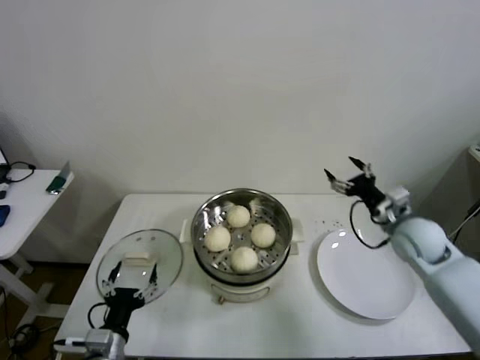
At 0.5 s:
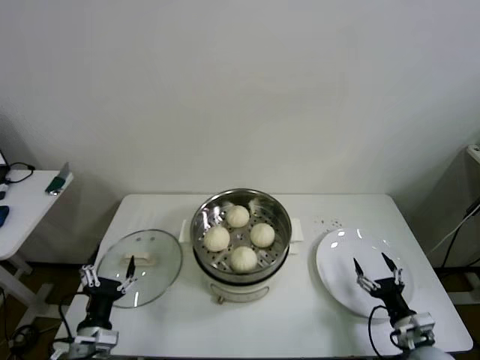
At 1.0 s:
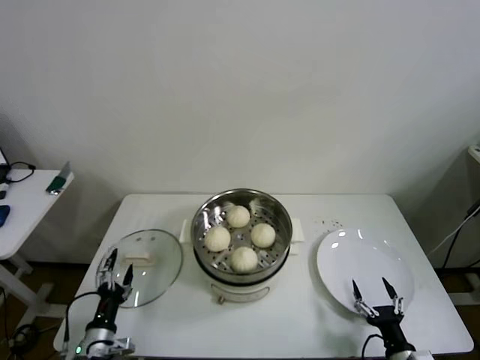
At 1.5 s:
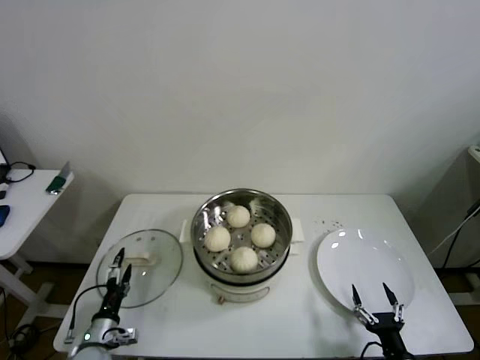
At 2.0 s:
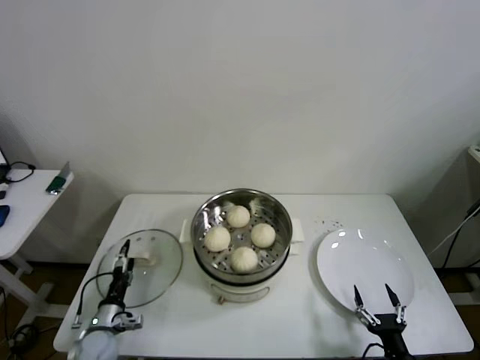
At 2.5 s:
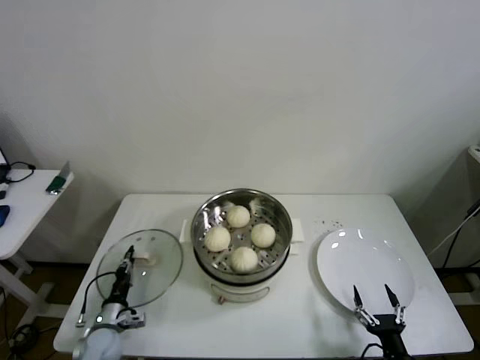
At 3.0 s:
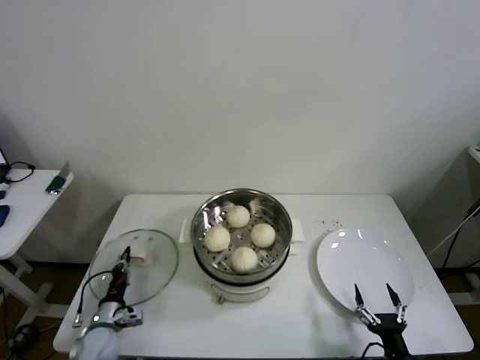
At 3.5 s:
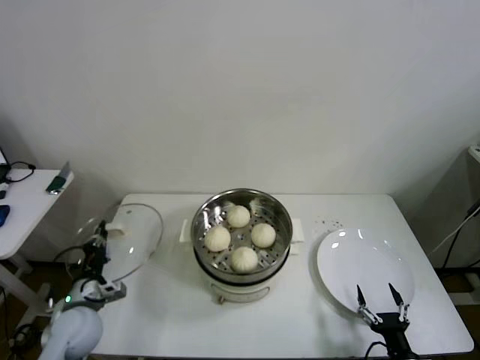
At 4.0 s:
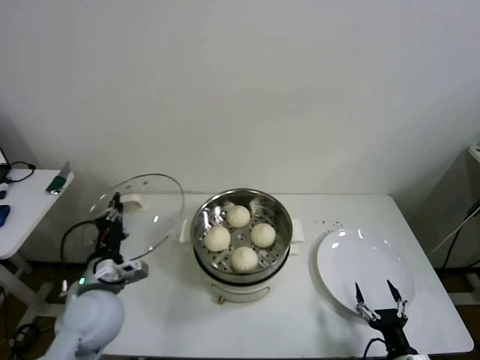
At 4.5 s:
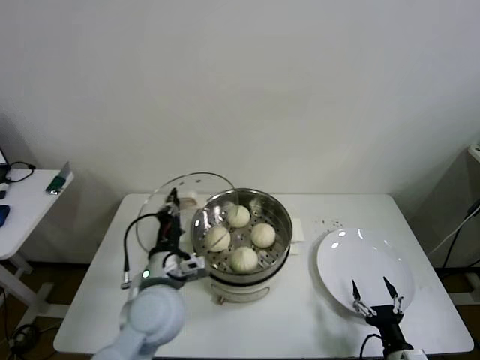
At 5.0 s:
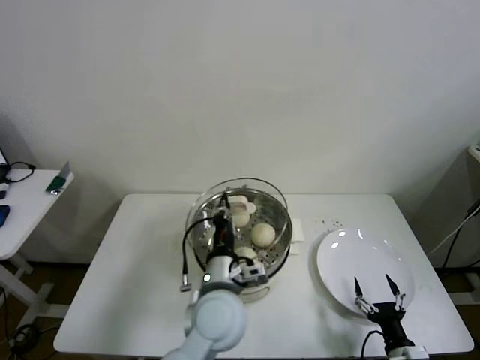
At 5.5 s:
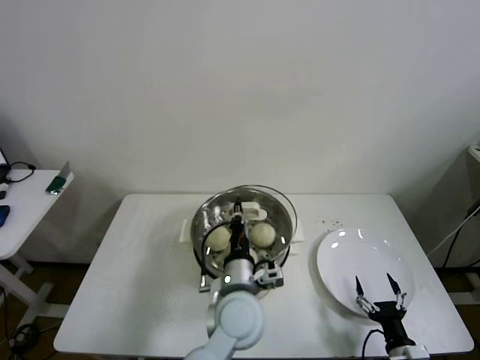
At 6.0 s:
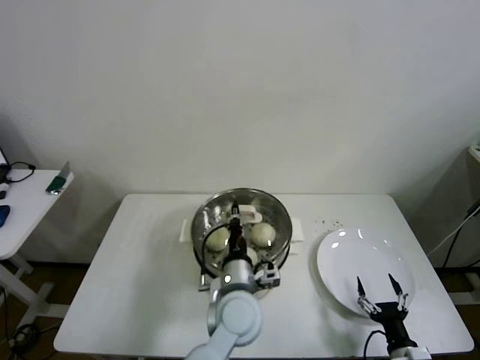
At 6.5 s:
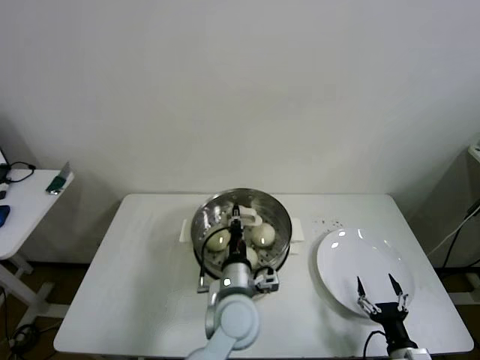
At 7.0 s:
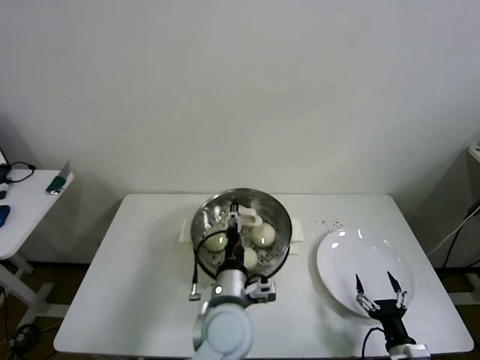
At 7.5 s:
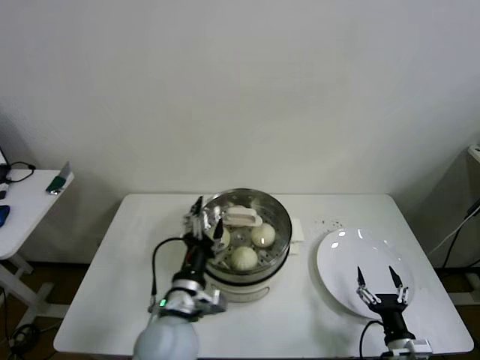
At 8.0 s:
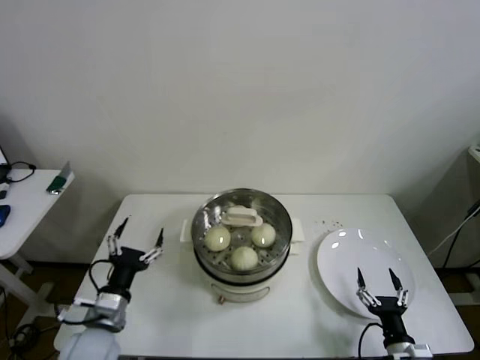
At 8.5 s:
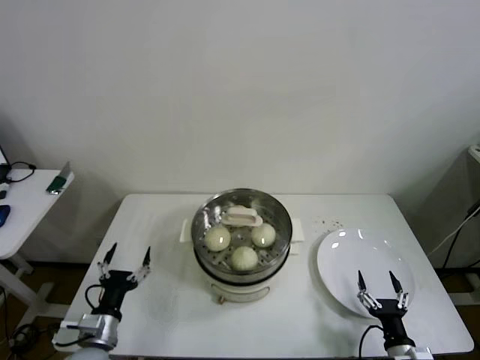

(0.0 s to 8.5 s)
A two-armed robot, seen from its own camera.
Step, 0.0 s - 2.5 s: Grasp the pot lid with left gripper.
Step, 3.0 s - 7.0 s: Place the pot lid on the steamer with left gripper.
0.0 s - 2.0 s: The right gripper goes some 40 cm backward and downward, while the left gripper heads downward, forward and to the left, covering some 15 cm.
2.0 s - 4.0 s: The left gripper heads upward, covering some 20 cm, and closes up.
4.0 s - 6.5 s: The left gripper is displaced to the right by approximately 25 cm.
6.5 s - 8.5 s: The left gripper goes about 30 cm to the left, and opens.

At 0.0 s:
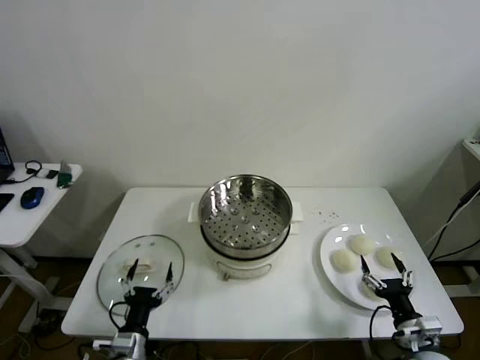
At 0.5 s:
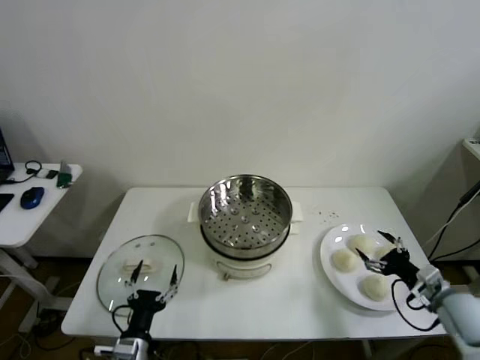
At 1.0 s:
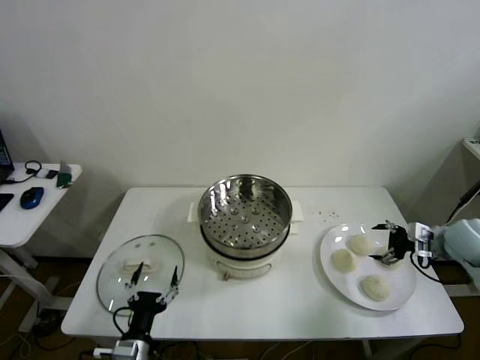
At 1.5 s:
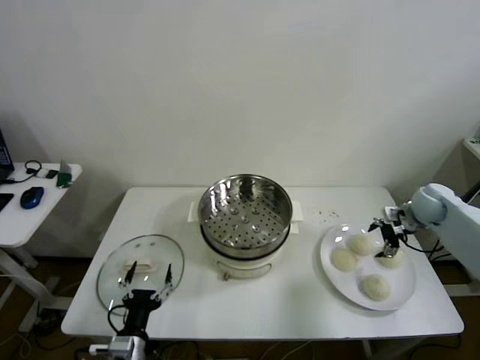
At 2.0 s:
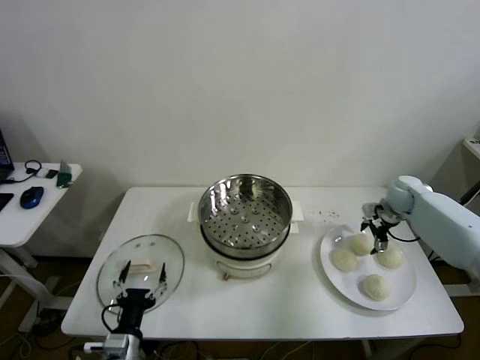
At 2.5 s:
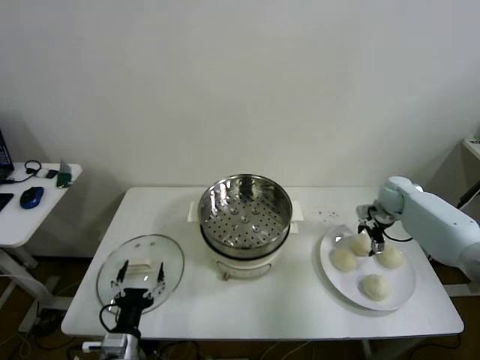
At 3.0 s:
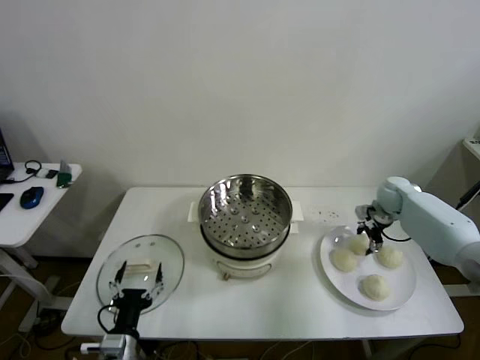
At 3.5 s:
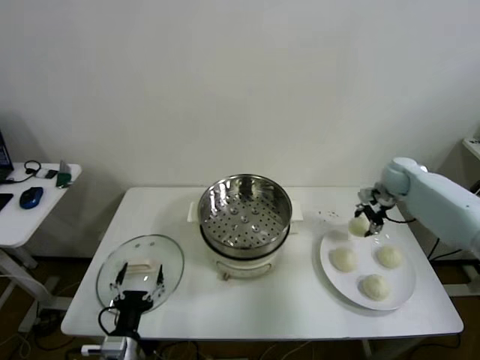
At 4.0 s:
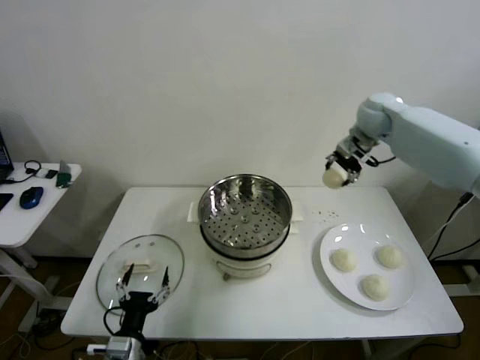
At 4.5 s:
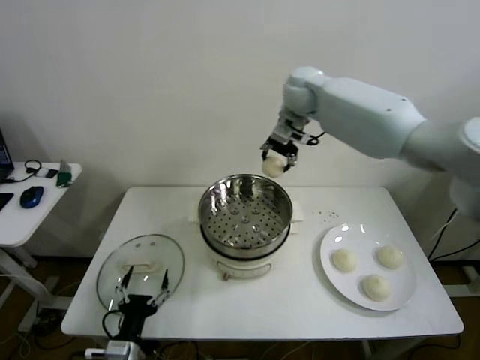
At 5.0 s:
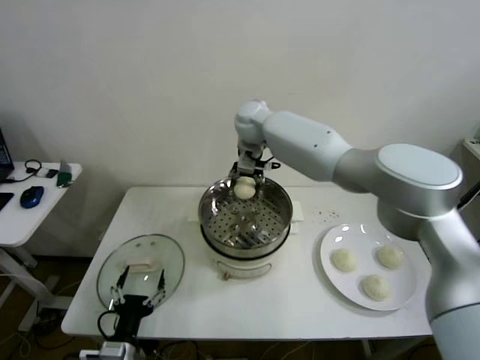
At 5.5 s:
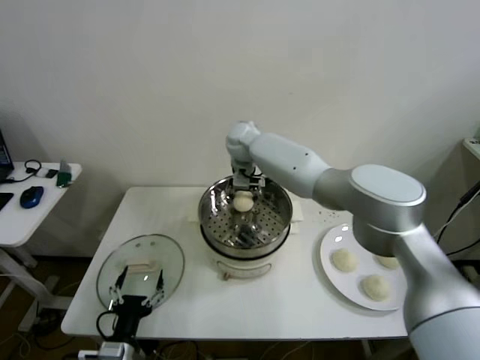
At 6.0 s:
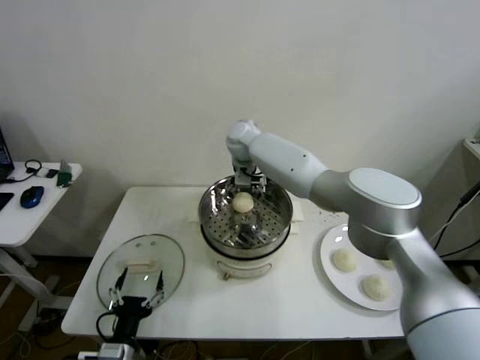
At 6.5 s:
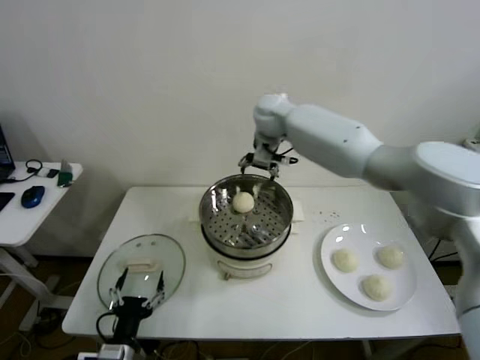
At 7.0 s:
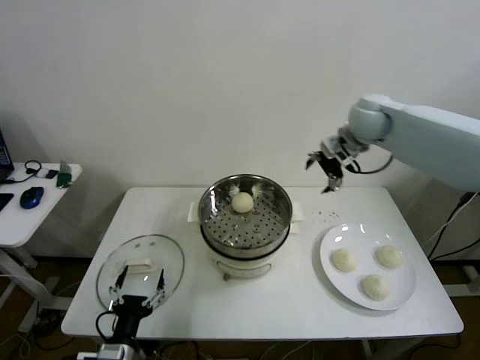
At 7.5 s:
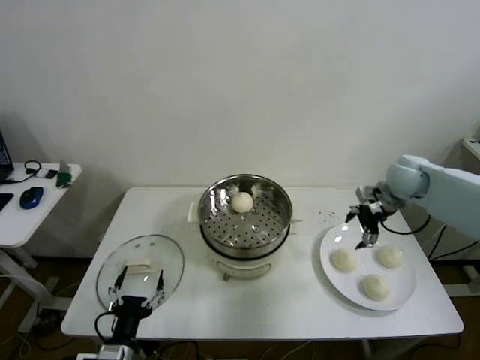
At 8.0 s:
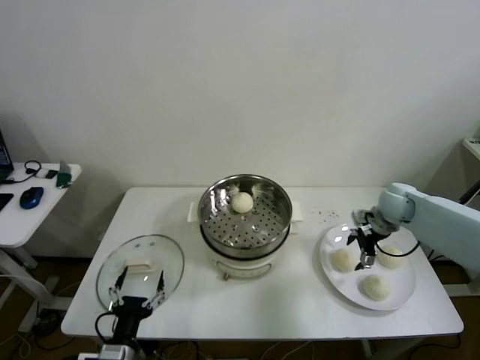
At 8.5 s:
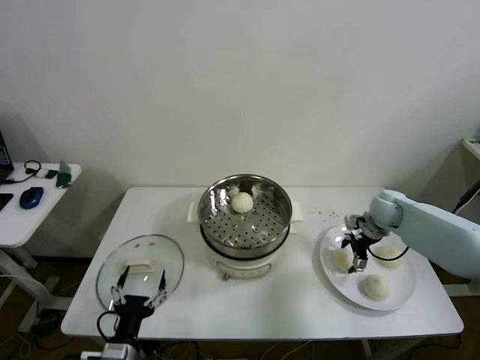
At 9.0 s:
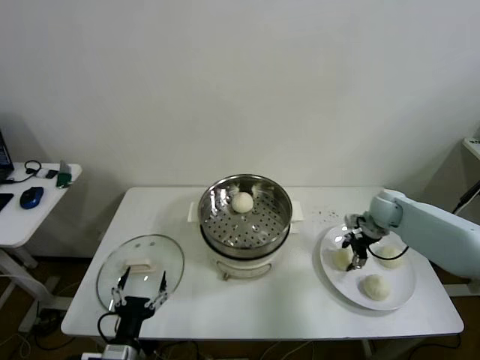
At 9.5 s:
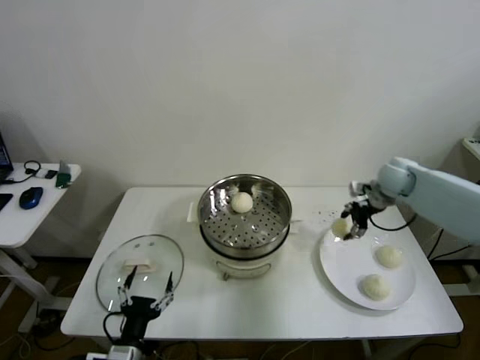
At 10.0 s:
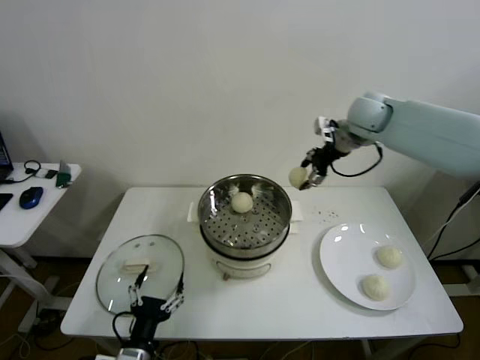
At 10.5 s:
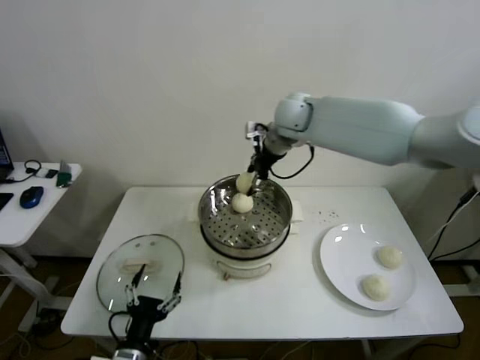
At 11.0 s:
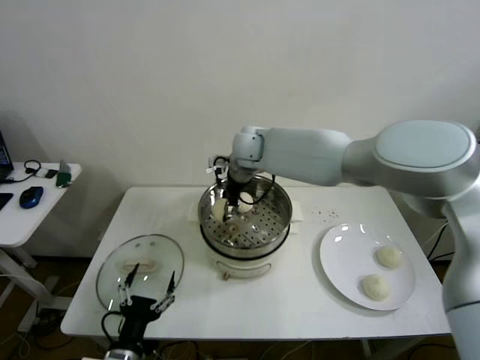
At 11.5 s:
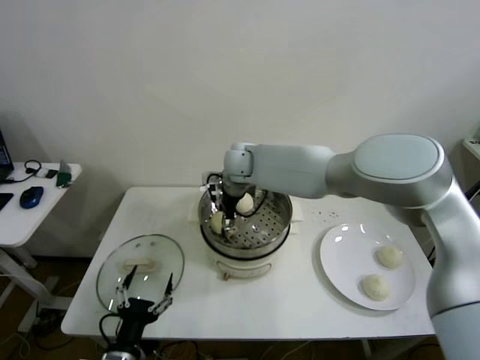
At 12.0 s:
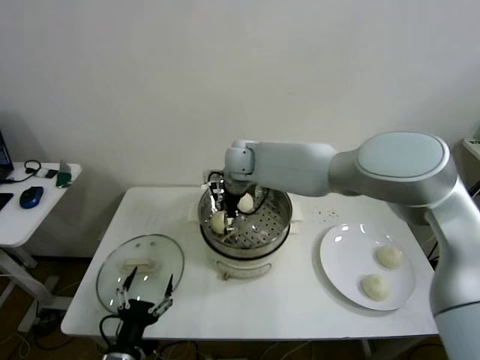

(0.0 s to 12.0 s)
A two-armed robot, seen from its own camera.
Step, 0.0 s - 3.0 s: Grasp the baozi in the plate with right gripper.
Step, 3.5 s - 5.5 s: Place the baozi on the steamer with right gripper.
Step, 6.0 s - 9.0 s: Grasp the baozi in the plate with right gripper.
Step, 9.5 s - 11.5 s: Place the baozi on the steamer with right gripper.
2.0 s - 4.0 s: The right gripper travels upward and to the left by approximately 25 cm, and closes up.
4.0 s - 6.0 s: The right gripper moves to the left, about 30 cm, and opens its fingers.
6.0 s - 8.0 s: The right gripper travels to the right by roughly 40 cm.
8.0 s - 10.0 s: The right gripper heads upward and to the left, covering roughly 25 cm, and closes its fingers.
10.0 s - 12.0 s: The right gripper is displaced to the left by approximately 30 cm, and opens.

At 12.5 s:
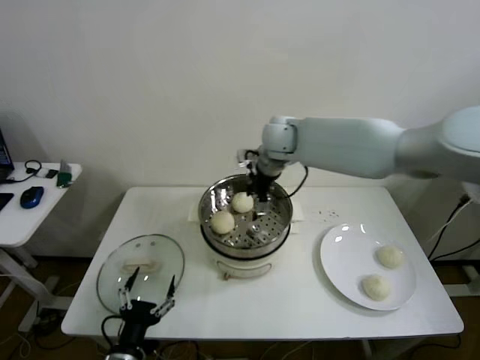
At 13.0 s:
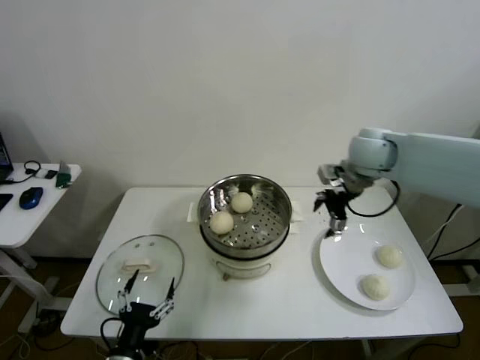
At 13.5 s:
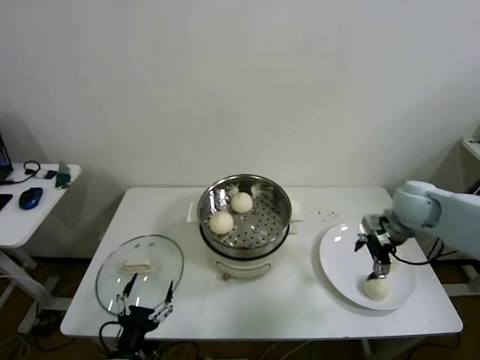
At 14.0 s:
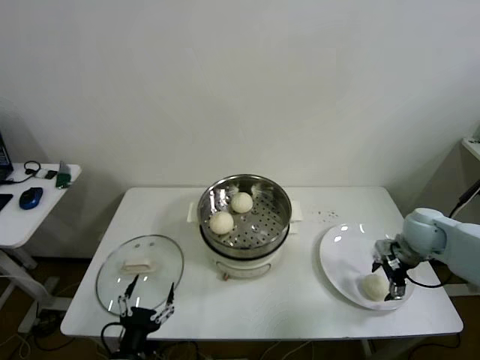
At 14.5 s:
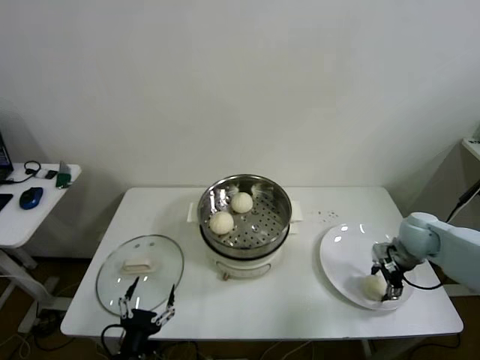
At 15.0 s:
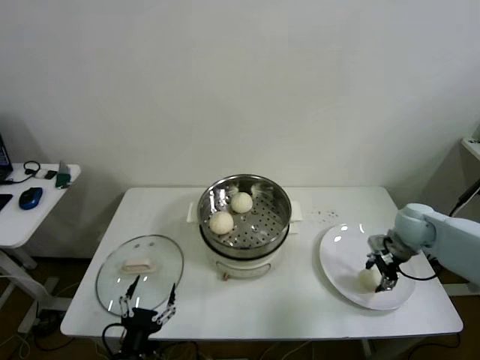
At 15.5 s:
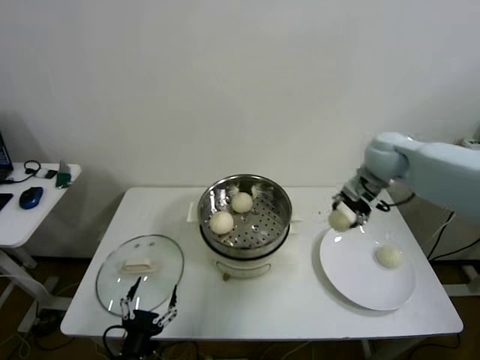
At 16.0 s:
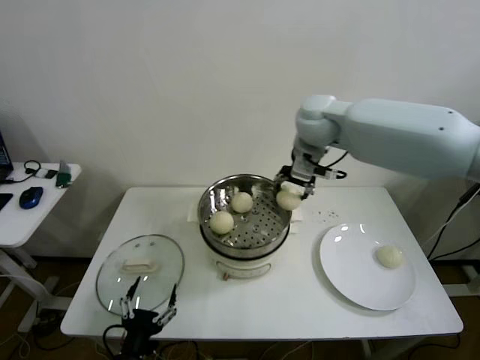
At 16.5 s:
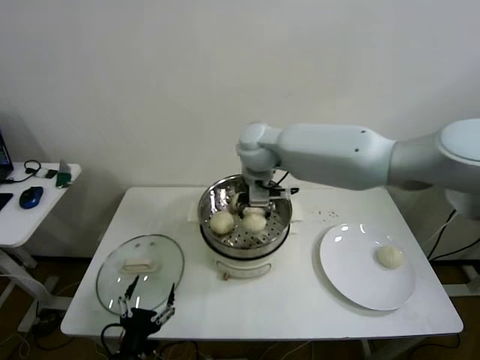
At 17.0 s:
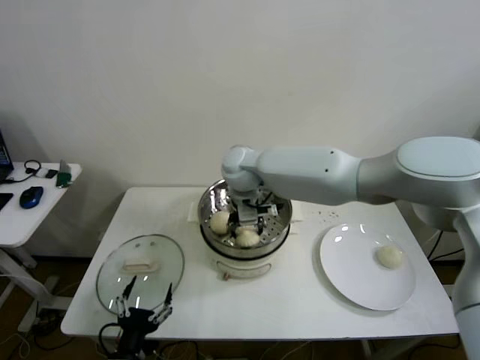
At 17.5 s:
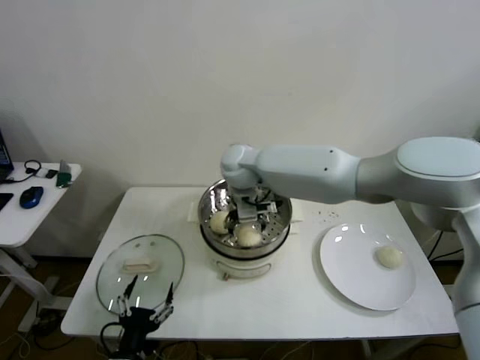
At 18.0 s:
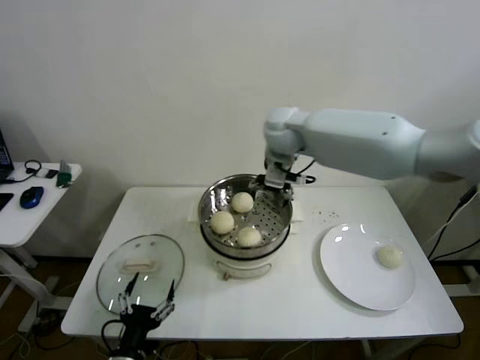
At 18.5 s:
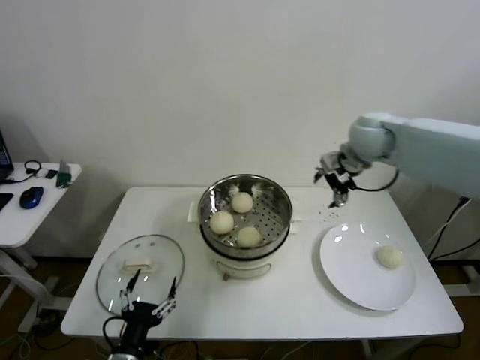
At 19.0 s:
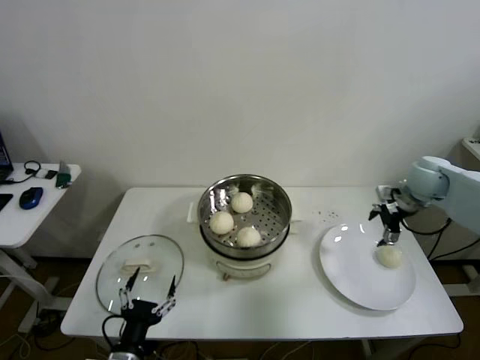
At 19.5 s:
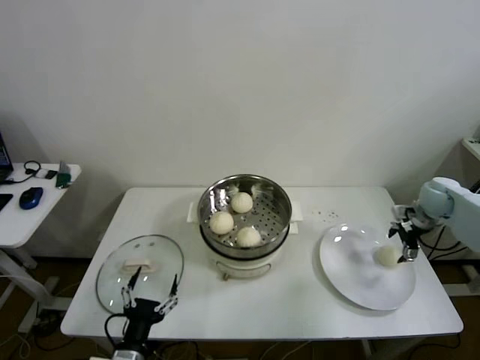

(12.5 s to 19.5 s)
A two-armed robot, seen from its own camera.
Step, 12.5 s - 14.5 s: Grasp the baozi in the plate with right gripper.
Step, 15.0 s - 17.0 s: Place the baozi on the steamer with right gripper.
12.5 s - 14.5 s: The right gripper moves to the right and downward, approximately 40 cm.
14.5 s - 16.0 s: The right gripper goes about 35 cm to the left and upward, and closes.
16.0 s - 17.5 s: The right gripper travels to the left and downward by about 20 cm, and opens.
17.5 s - 19.5 s: The right gripper moves to the right, approximately 50 cm.
